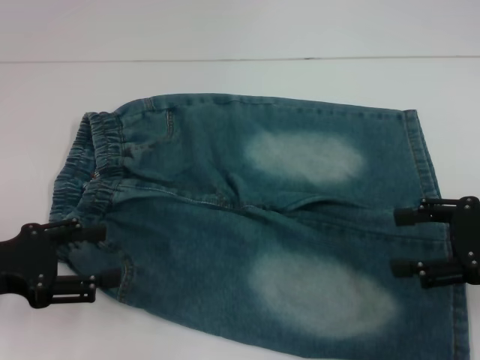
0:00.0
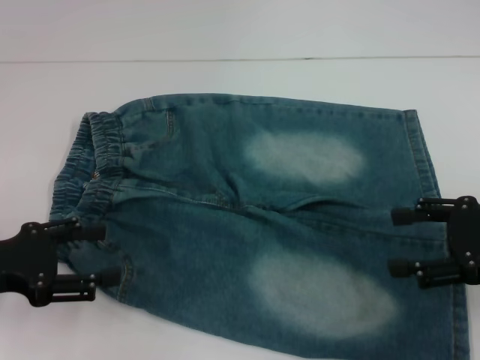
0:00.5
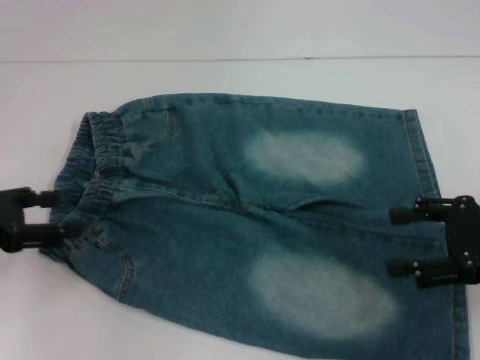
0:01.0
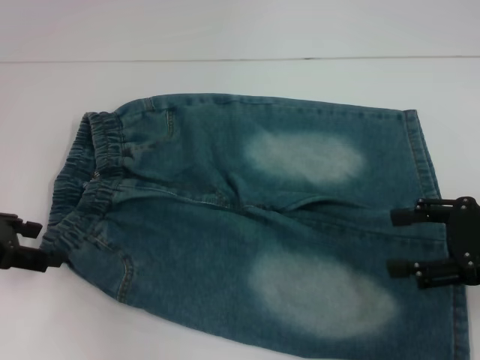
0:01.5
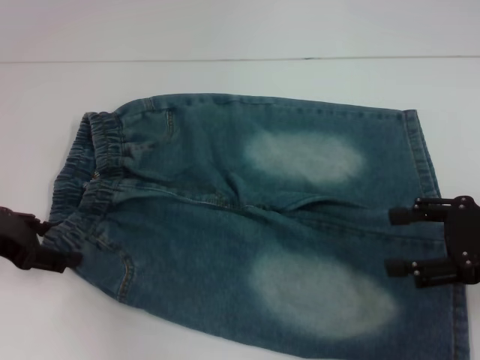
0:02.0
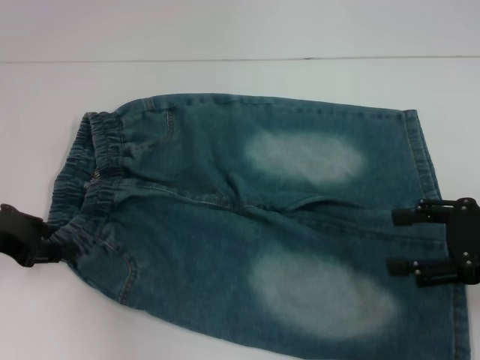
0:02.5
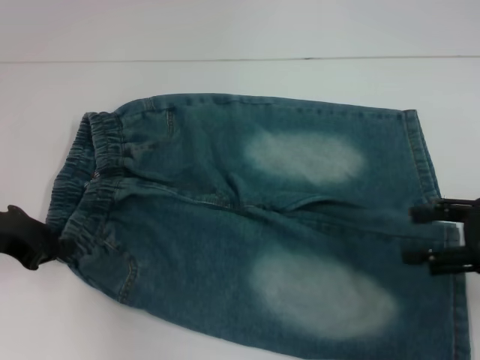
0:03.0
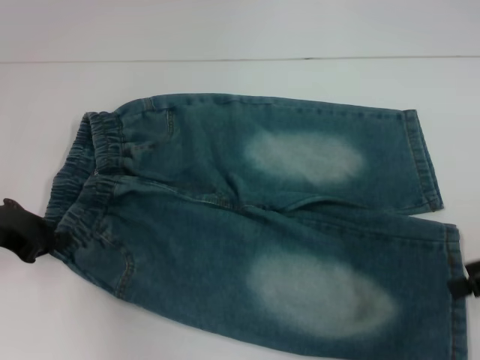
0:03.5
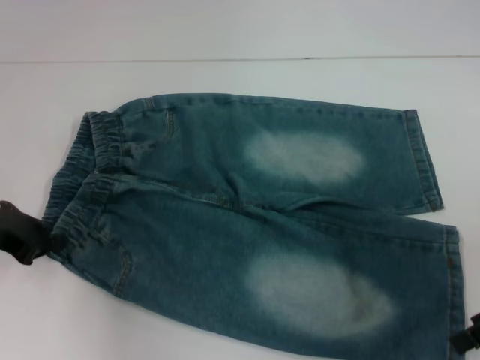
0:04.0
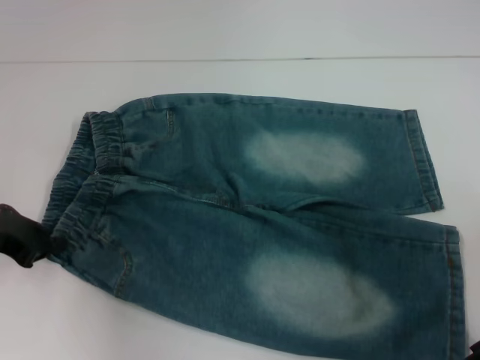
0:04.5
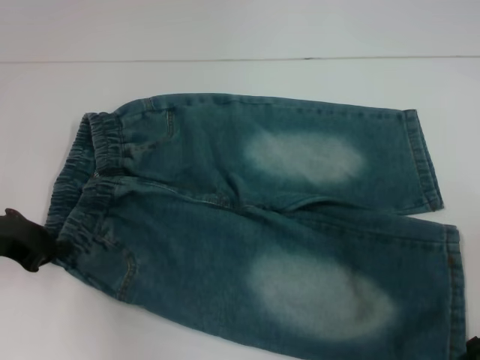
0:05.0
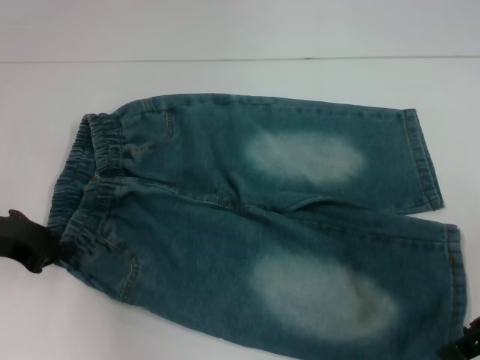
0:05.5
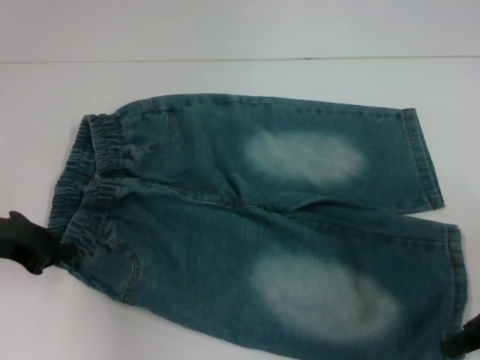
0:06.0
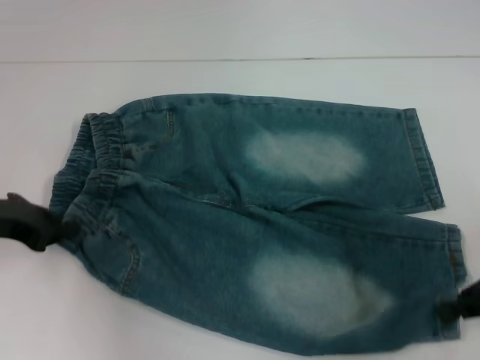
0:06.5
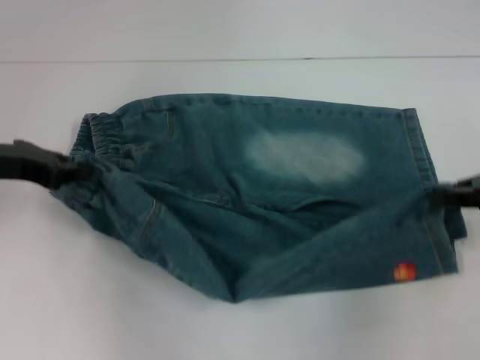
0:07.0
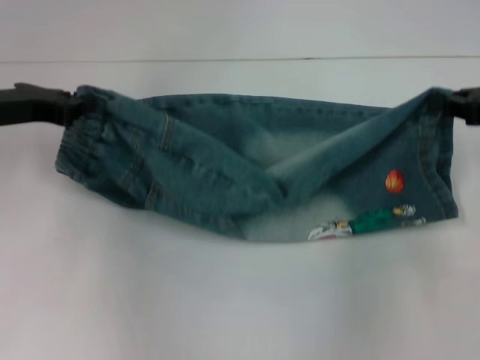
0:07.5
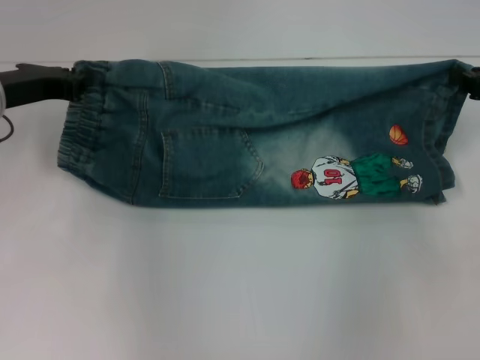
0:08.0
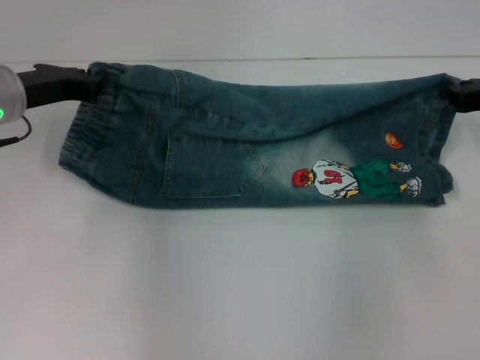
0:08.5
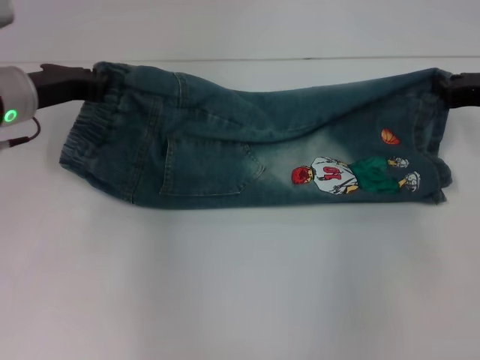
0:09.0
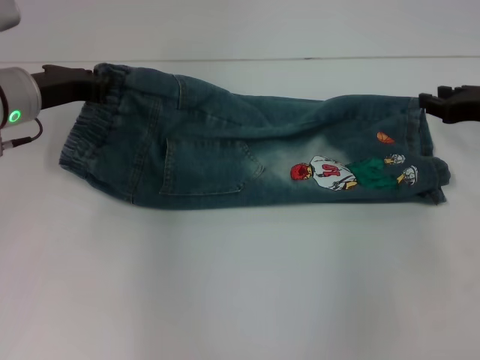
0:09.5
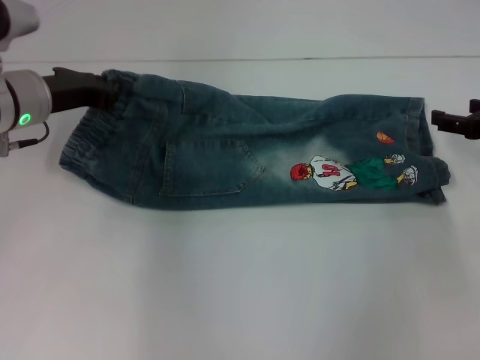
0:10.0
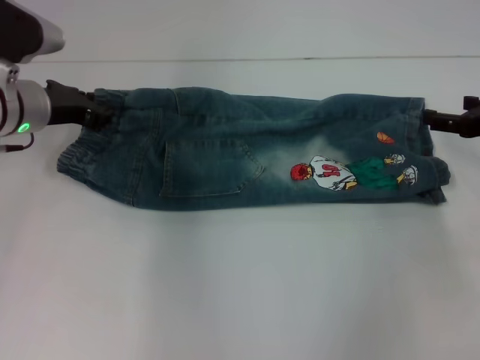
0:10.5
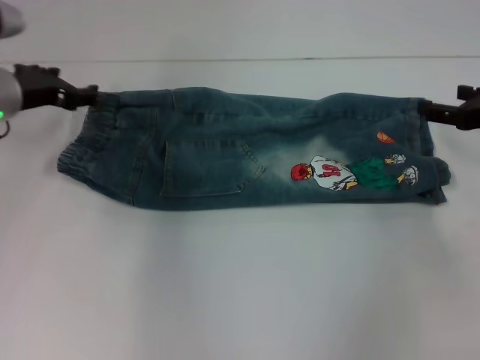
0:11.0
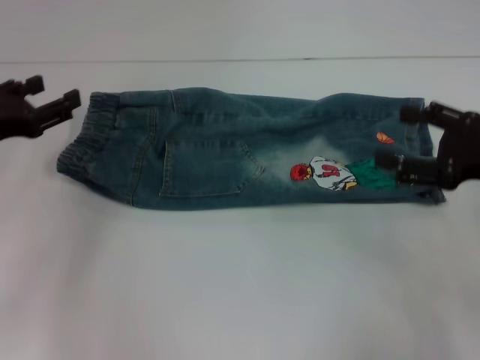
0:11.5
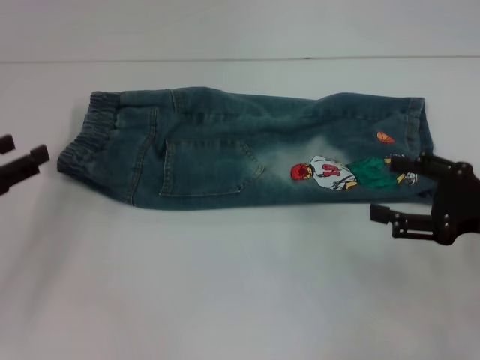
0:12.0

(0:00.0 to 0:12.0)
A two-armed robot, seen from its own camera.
Step, 0:00.0 - 0:03.0: Hold the lower left waistband with your left hand.
Step, 0:03.5 - 0:06.0: Grab the lower right pant leg with your right hand.
Step, 0:06.5 - 0:09.0: Fold upward with your right hand.
Step, 0:09.5 - 0:10.5: Fold upward with your left hand.
0:00.0 - 0:02.0: The left gripper travels forward by some 5 cm.
0:02.0 - 0:04.0: The left gripper closes its fingers.
0:04.0 - 0:06.0: The right gripper closes its fingers.
0:06.0 - 0:08.0: Both grippers move forward, roughly 10 cm. The right gripper closes its fingers.
0:08.0 - 0:10.0: The right gripper opens up.
0:10.0 - 0:12.0: The left gripper shifts approximately 15 cm backward and to the left, and opens its fingers. Meanwhile the right gripper travels backward by some 10 cm.

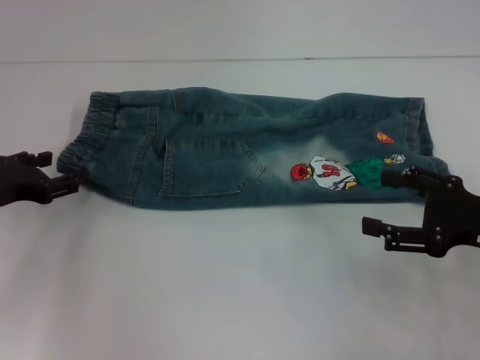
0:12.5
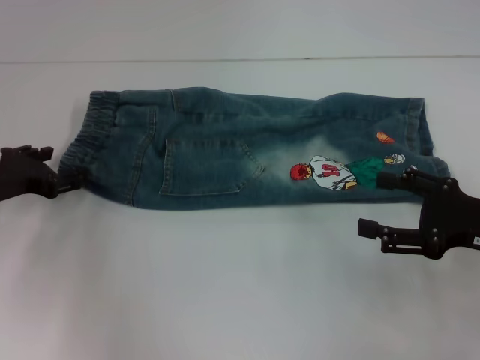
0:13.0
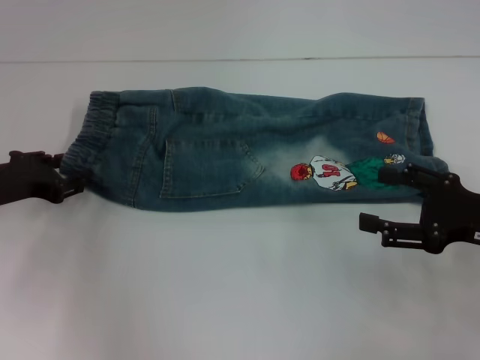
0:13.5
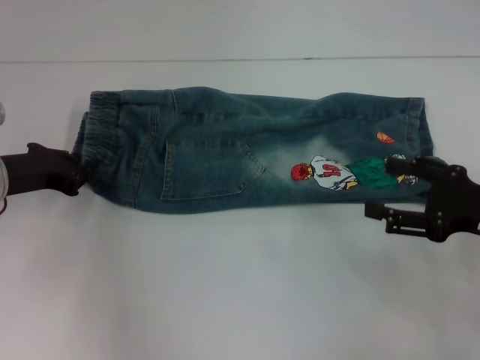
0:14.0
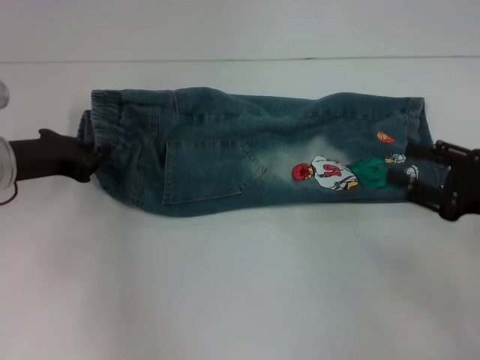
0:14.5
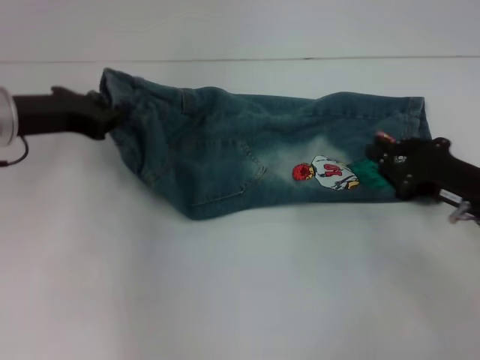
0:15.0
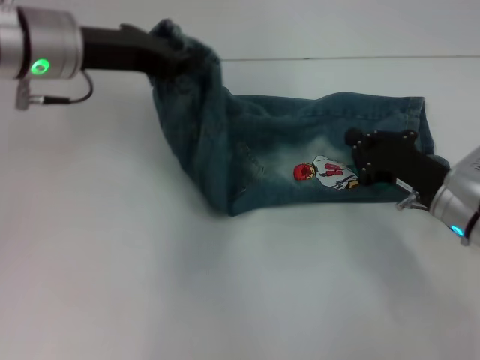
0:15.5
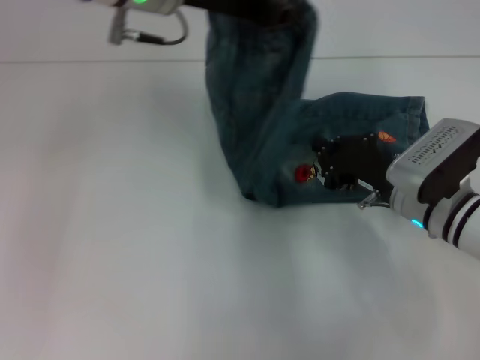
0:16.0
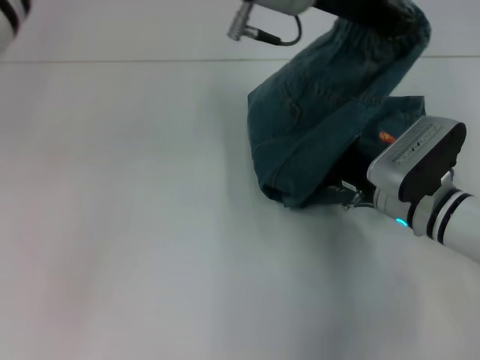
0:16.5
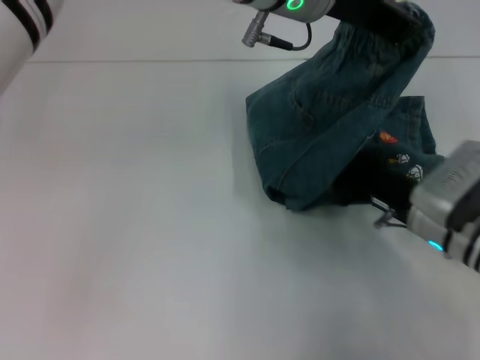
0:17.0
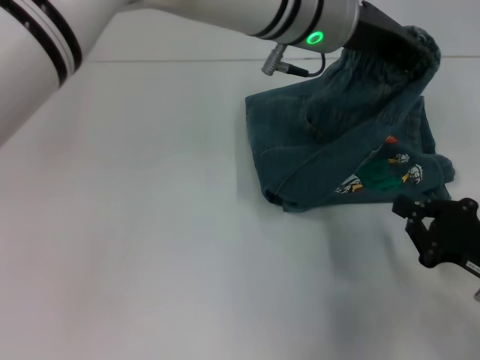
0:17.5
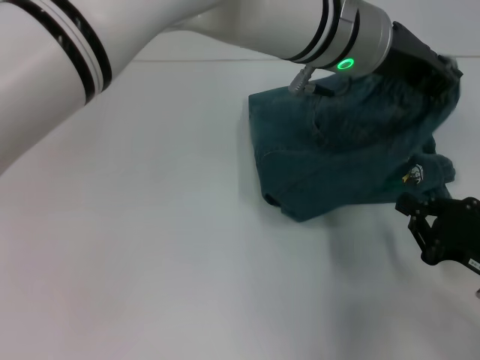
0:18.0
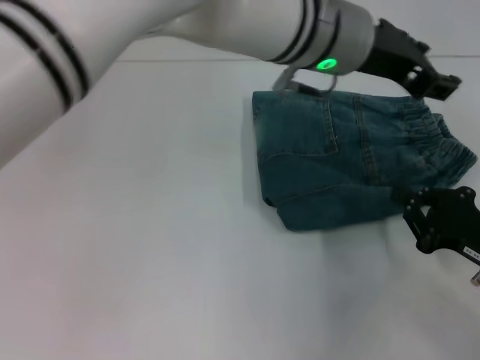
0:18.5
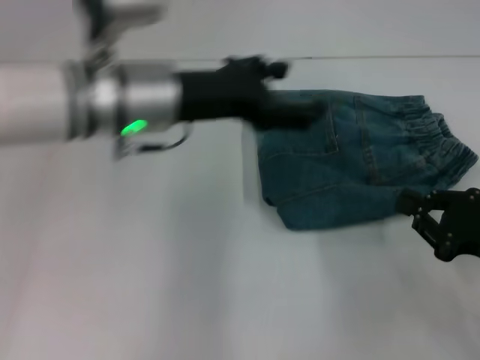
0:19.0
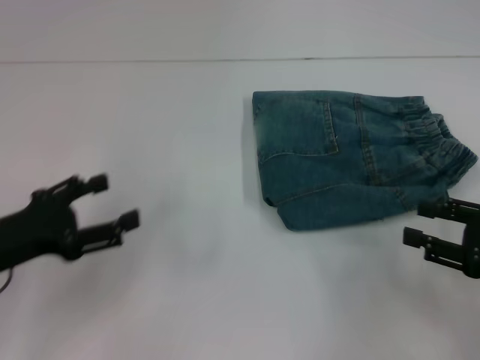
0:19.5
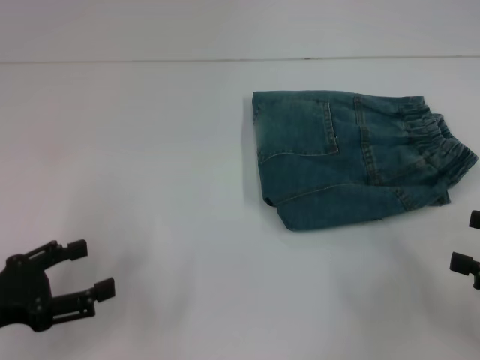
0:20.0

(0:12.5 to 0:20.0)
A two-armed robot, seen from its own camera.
Step, 0:14.0 - 0:16.5: Press the middle of the pants with your right hand.
Step, 0:17.0 - 0:18.0: Fold to the right with your left hand.
0:12.5 - 0:14.5: The left gripper shifts by some 5 cm, and closes.
0:14.5 - 0:16.5: The left gripper goes approximately 30 cm to the right and upward. The right gripper shifts approximately 15 cm to the left, forward and downward, and closes up.
0:16.5 - 0:18.0: The right gripper moves to the right and backward, some 15 cm. The left gripper heads to the right, covering roughly 5 cm.
0:18.0 - 0:20.0: The right gripper shifts approximately 10 cm to the right and upward, and opens its fingers. The left gripper moves to the left, backward and downward, approximately 40 cm, and opens its fingers.

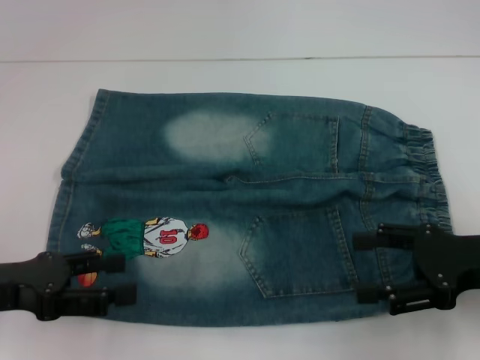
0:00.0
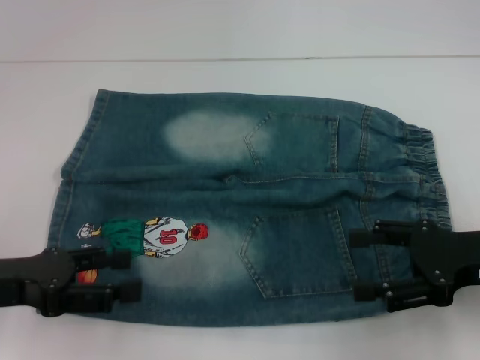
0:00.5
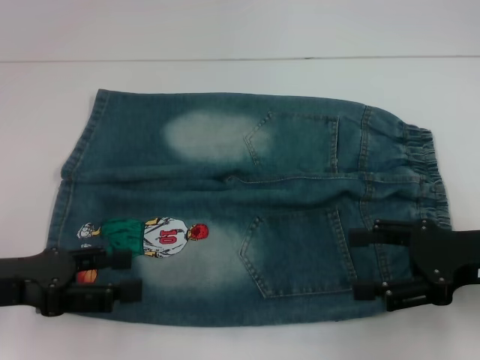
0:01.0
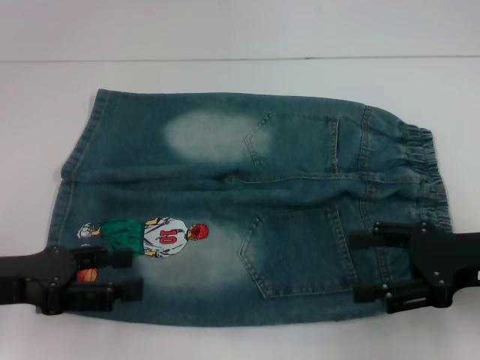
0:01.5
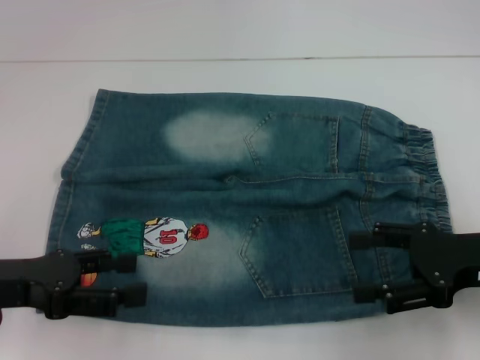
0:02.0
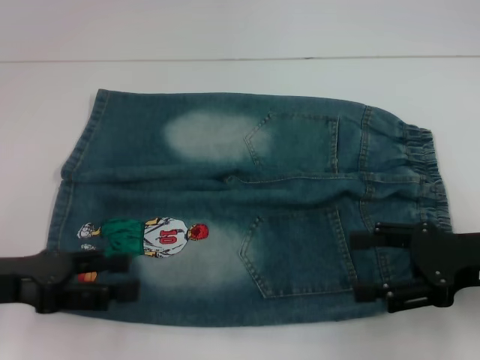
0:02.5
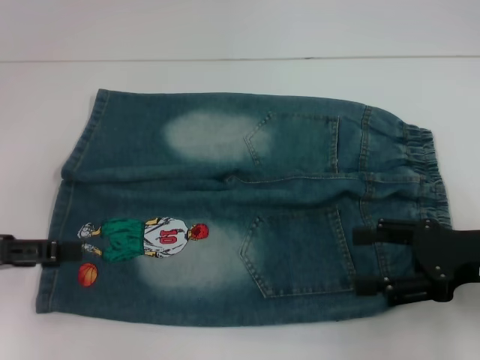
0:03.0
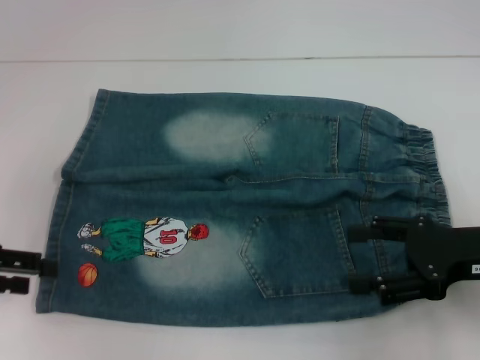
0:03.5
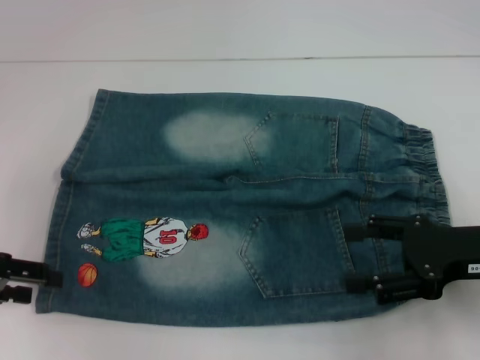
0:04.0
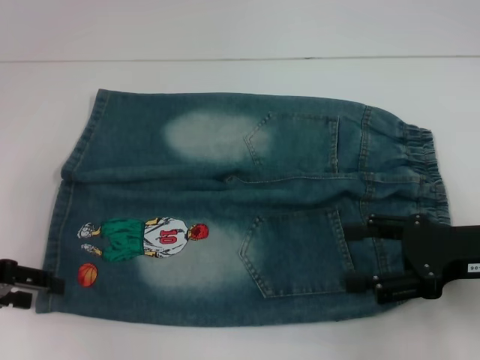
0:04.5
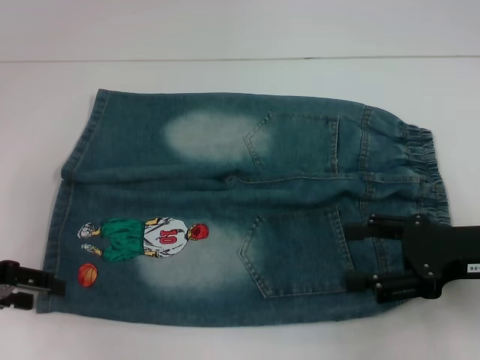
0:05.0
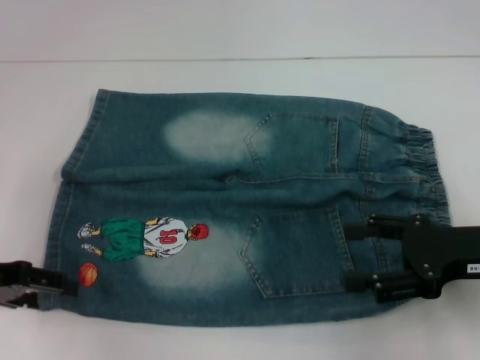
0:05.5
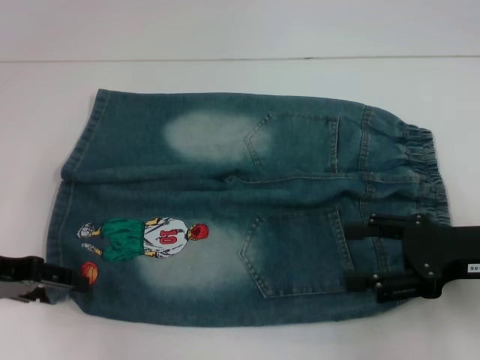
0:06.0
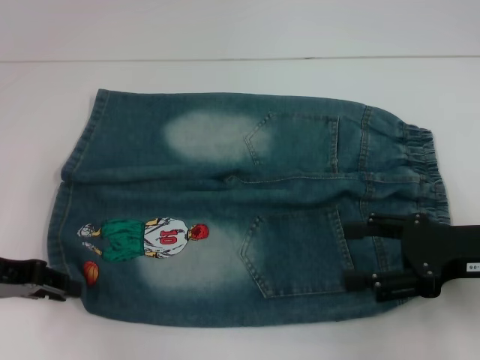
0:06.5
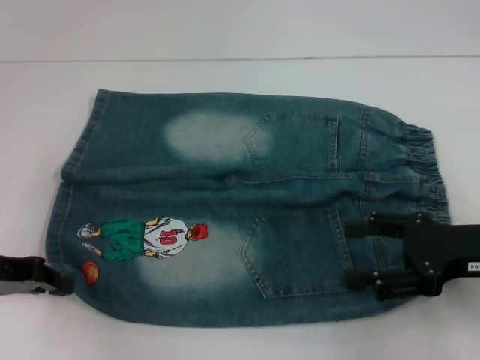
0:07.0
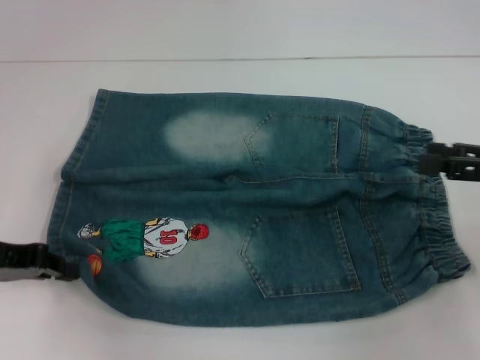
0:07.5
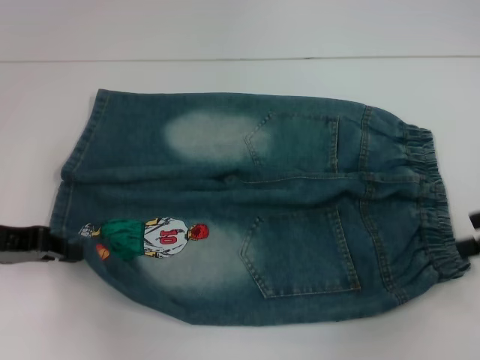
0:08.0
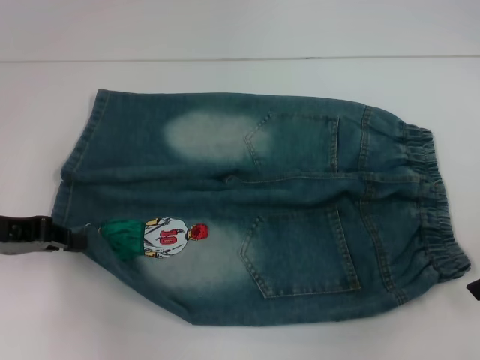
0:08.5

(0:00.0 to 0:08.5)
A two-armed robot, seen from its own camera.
Step, 0:00.0 - 0:06.5: Grab the lower left pant leg with your left hand.
0:00.0 - 0:02.0: The two grippers keep their place.
0:02.0 - 0:04.0: The left gripper is displaced to the left by approximately 5 cm.
0:04.0 - 0:06.5: The grippers stay close to where they were, moving slightly.
0:06.5 - 0:08.5: The left gripper closes up, while the right gripper travels to the right by approximately 5 cm.
